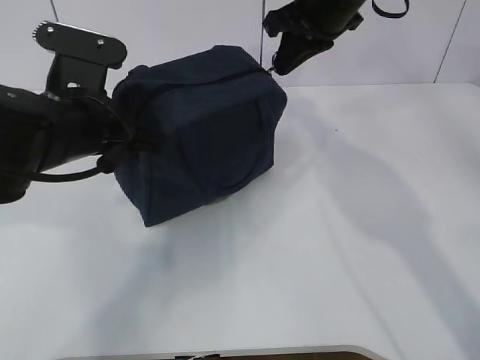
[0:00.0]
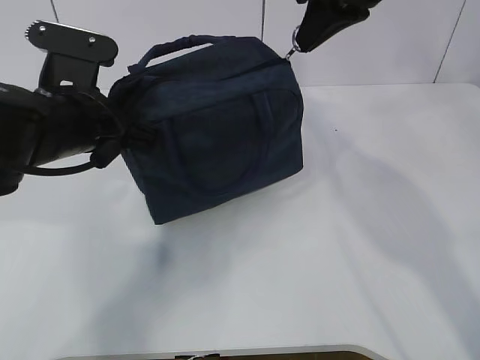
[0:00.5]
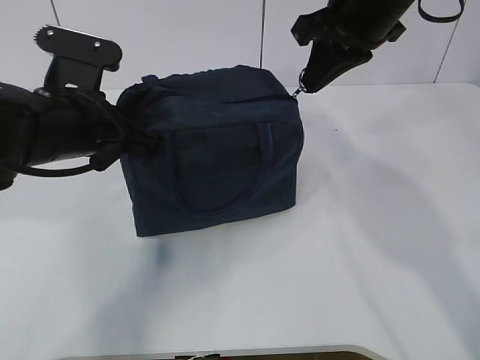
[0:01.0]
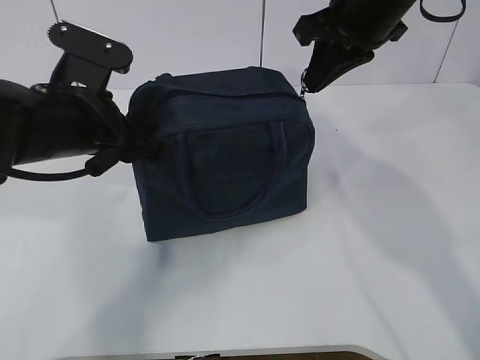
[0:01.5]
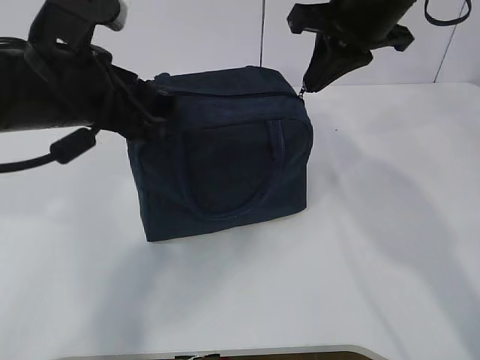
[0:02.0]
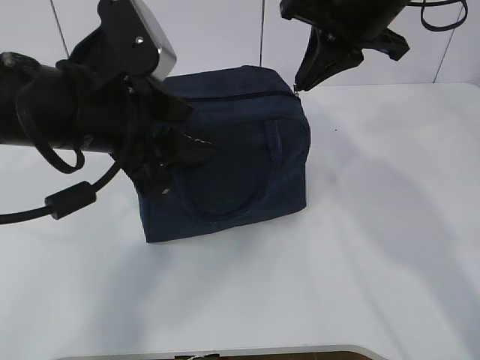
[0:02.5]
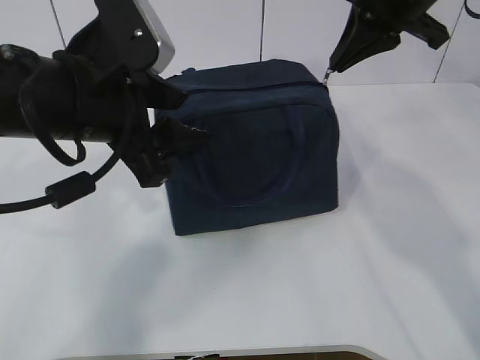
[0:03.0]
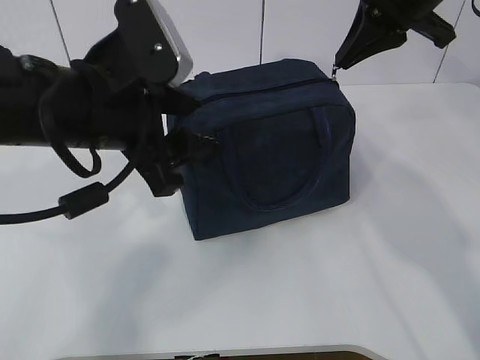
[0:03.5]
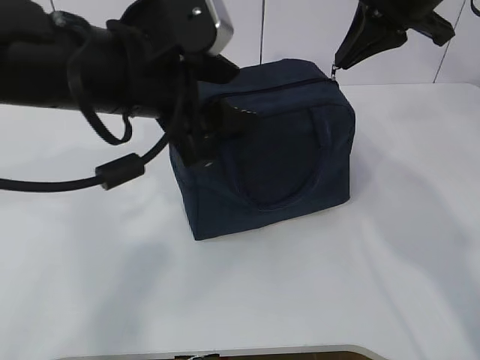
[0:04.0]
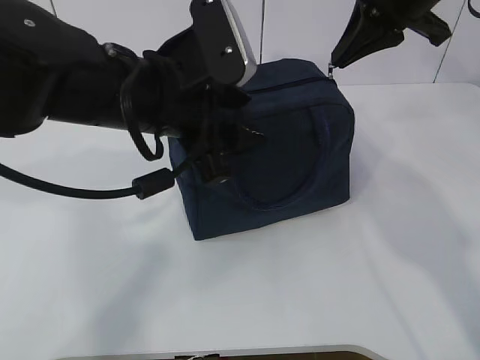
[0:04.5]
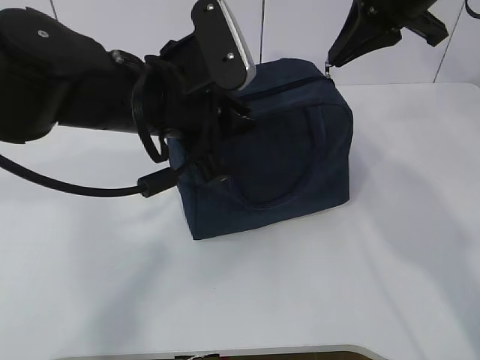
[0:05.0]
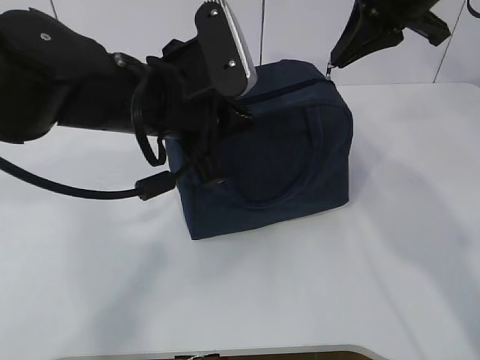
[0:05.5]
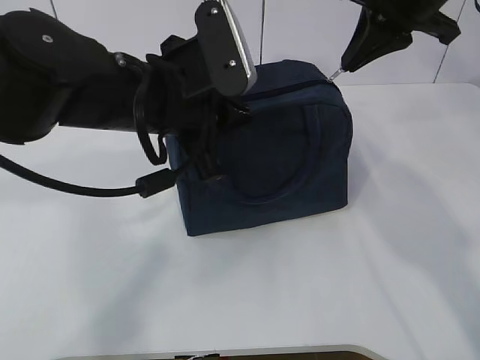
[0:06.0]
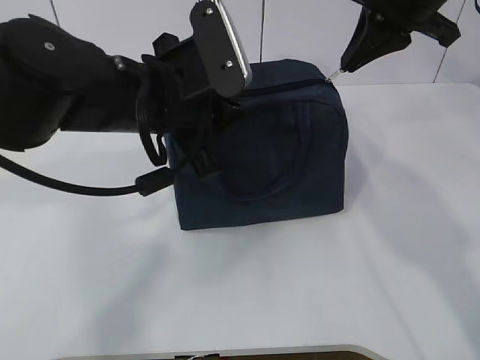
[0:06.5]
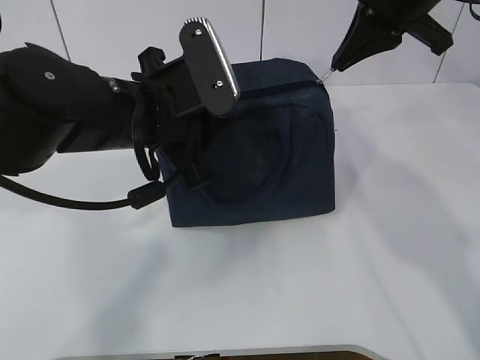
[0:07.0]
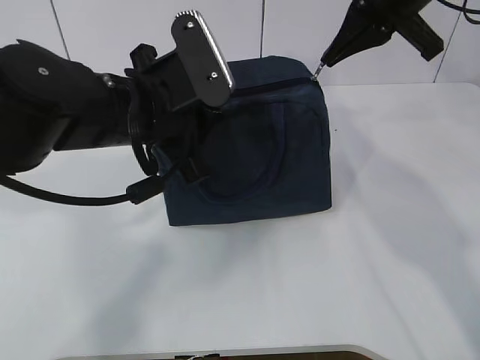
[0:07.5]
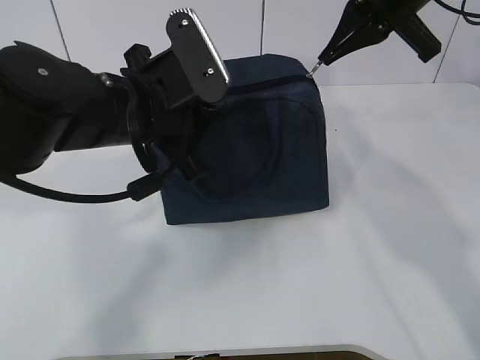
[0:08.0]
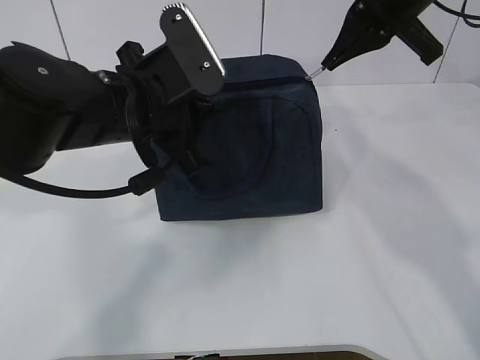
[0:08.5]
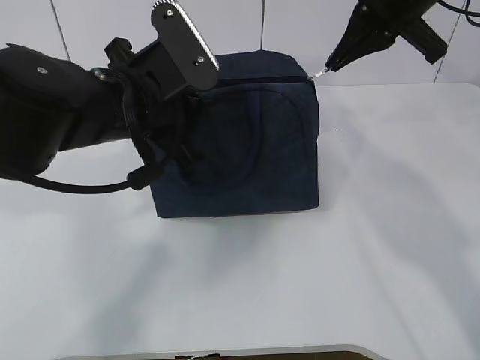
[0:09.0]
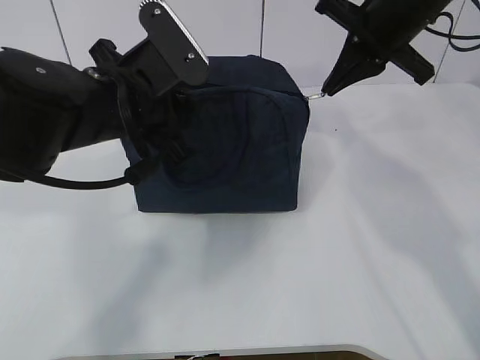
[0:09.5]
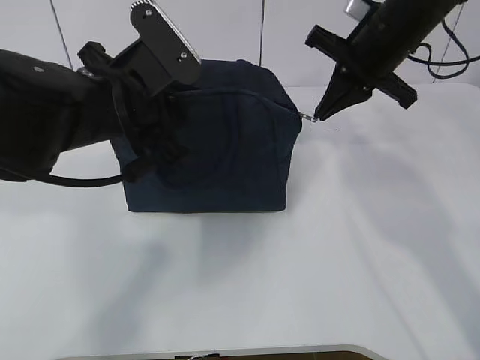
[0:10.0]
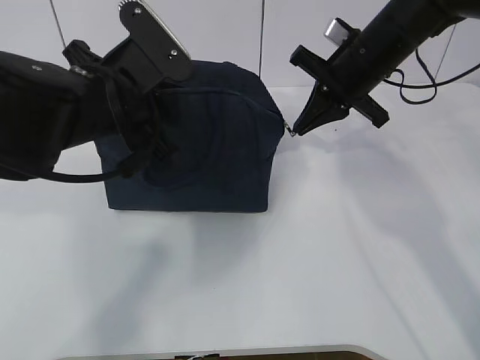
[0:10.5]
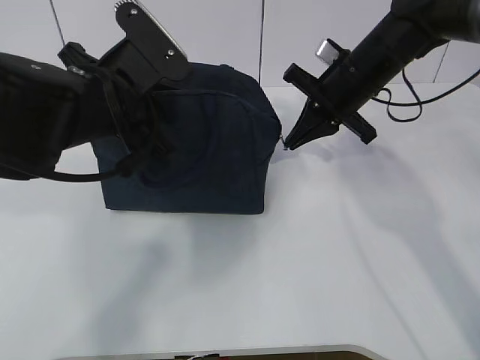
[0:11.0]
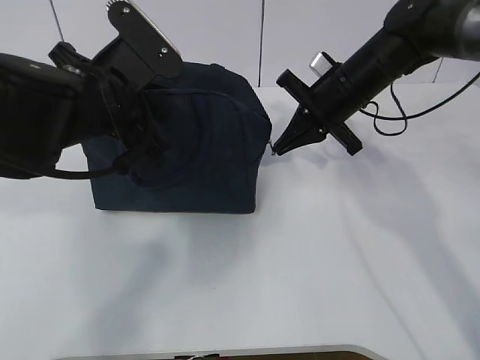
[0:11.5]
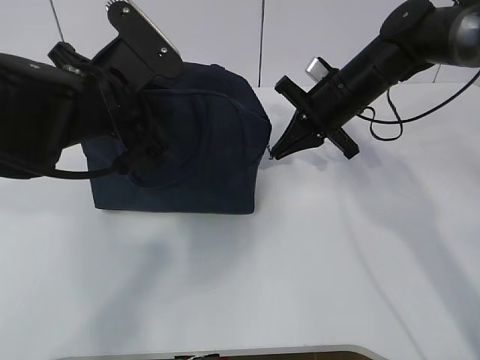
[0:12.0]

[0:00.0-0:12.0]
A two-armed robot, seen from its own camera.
0:00.0 to 0:02.0: The right gripper moves backward, approximately 5 cm, while the left gripper ends up about 5 cm from where it was, and opens its fingers.
0:02.0 to 0:04.0: The left gripper shifts roughly 5 cm to the right.
0:04.0 to 0:06.0: The left gripper closes up.
0:08.0 to 0:10.0: The right gripper is displaced downward by approximately 10 cm.
0:10.0 to 0:12.0: The right gripper travels downward by approximately 10 cm.

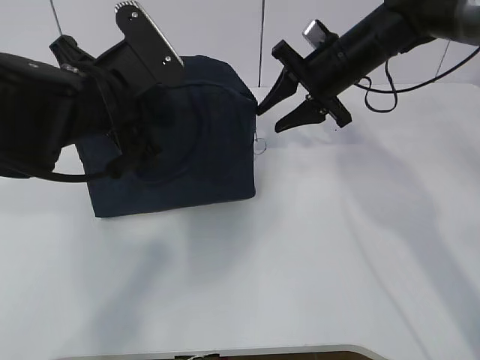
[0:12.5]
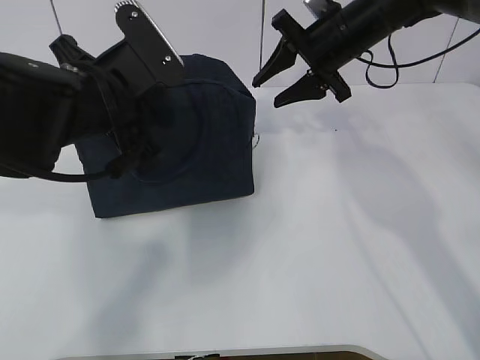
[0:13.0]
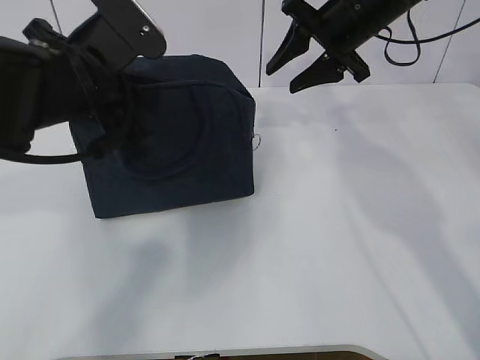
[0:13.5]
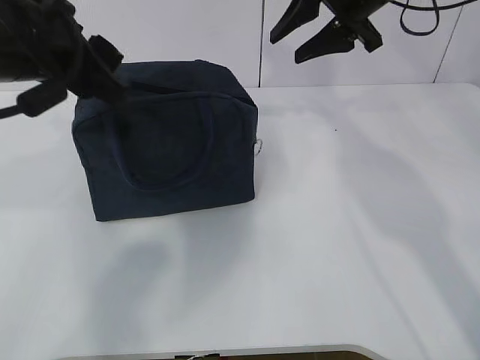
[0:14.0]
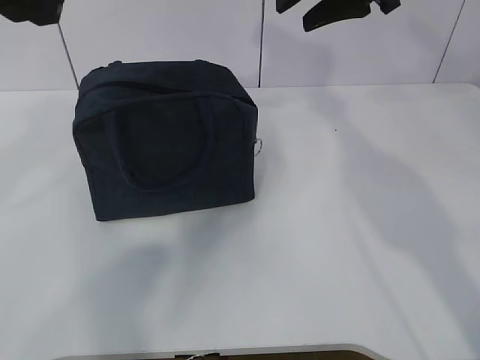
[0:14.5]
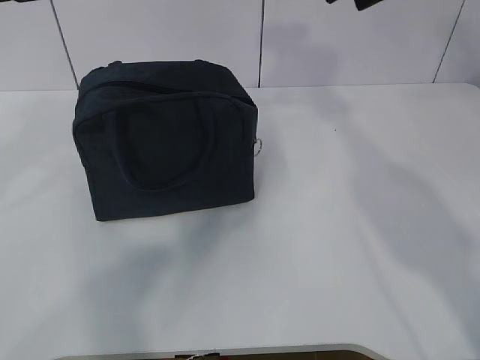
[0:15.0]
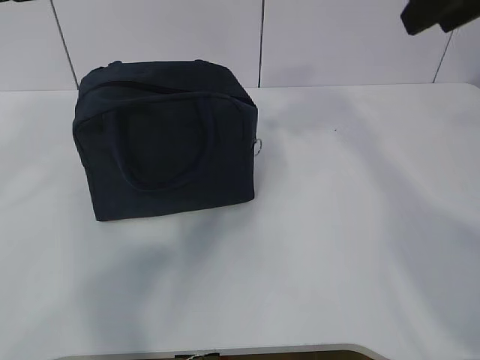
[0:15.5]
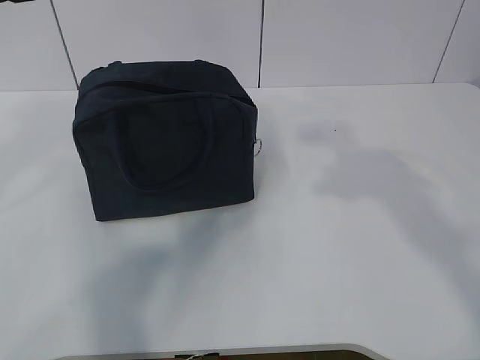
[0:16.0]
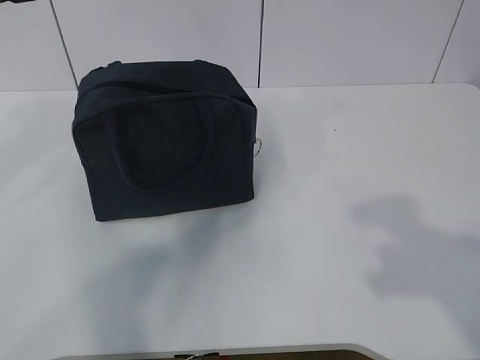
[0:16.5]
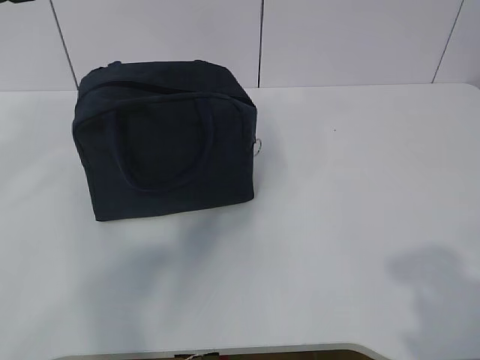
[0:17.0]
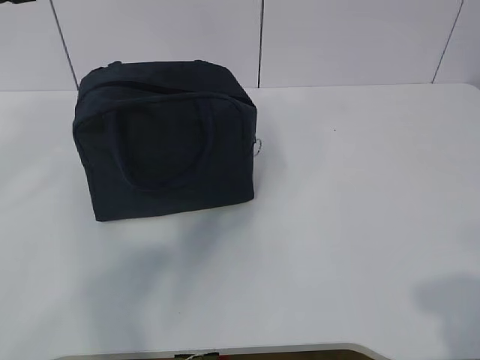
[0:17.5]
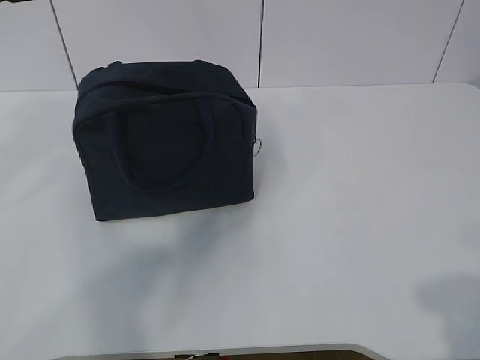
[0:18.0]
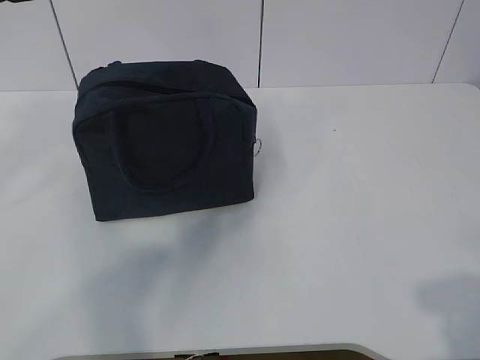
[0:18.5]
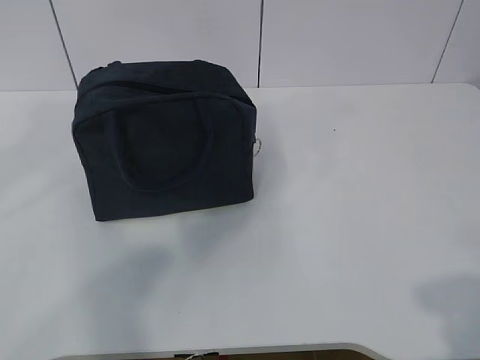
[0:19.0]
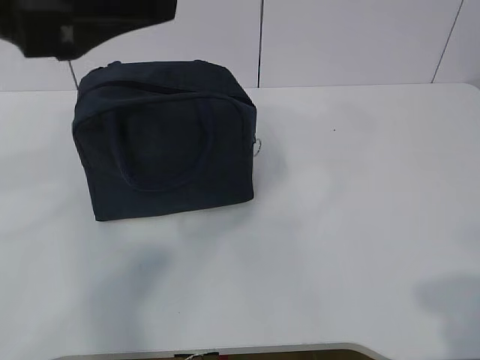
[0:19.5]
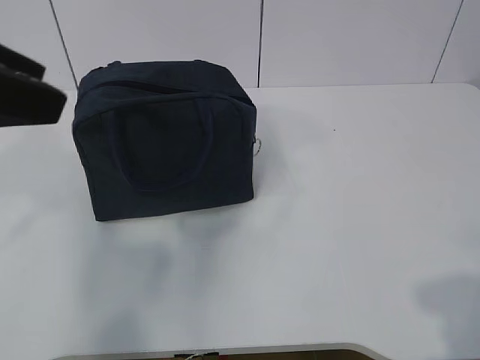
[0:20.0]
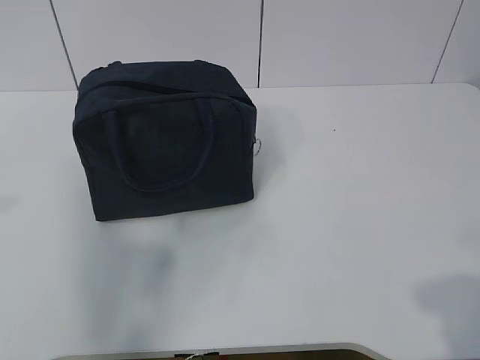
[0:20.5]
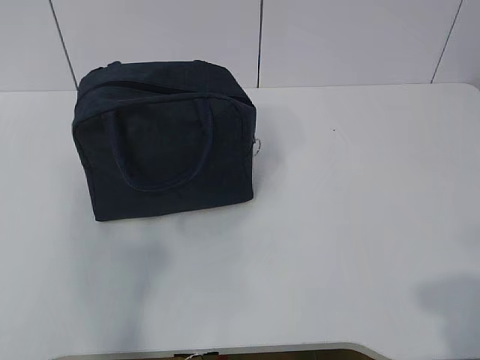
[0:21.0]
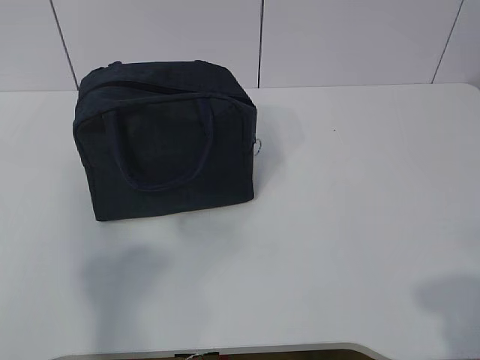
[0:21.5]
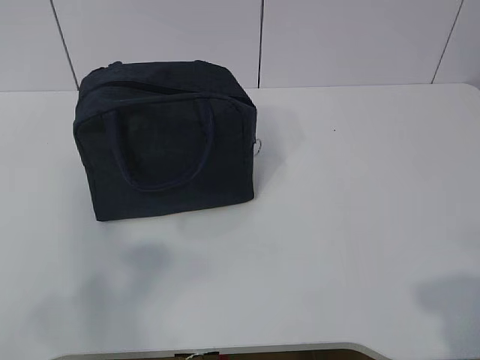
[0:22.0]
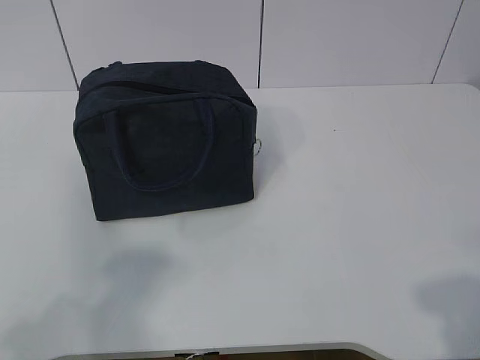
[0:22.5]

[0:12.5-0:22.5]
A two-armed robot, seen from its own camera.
0:12.5 to 0:14.5: The right gripper moves upward, roughly 15 cm, while the left gripper is displaced upward and backward by about 15 cm, and opens up.
0:14.5 to 0:16.5: The right gripper shifts approximately 35 cm backward.
0:18.5 to 0:20.5: The left gripper travels backward and to the left by roughly 10 cm.
0:20.5 to 0:22.5: The left gripper heads backward and downward, covering some 15 cm.

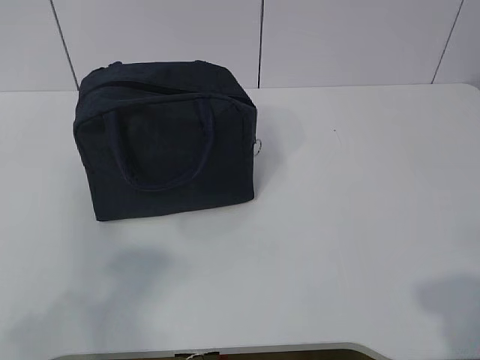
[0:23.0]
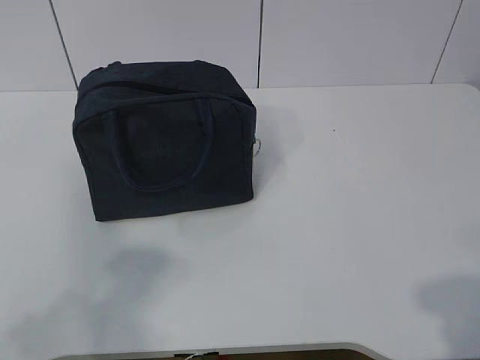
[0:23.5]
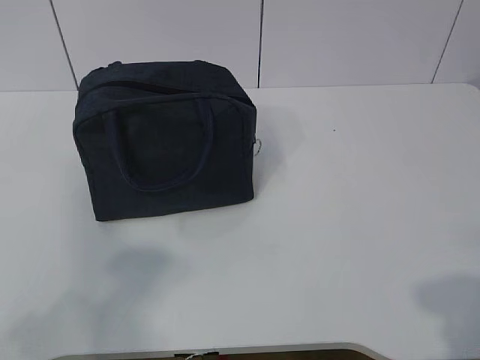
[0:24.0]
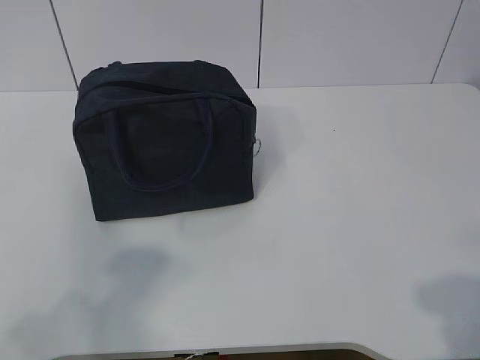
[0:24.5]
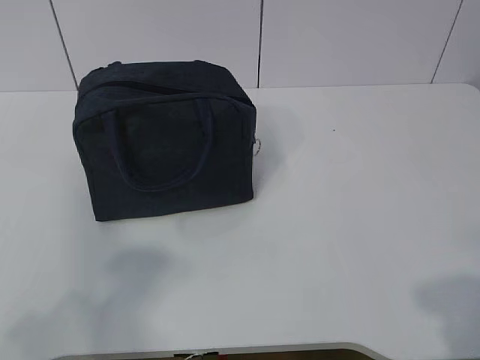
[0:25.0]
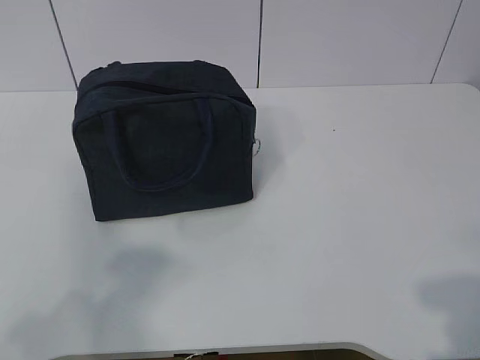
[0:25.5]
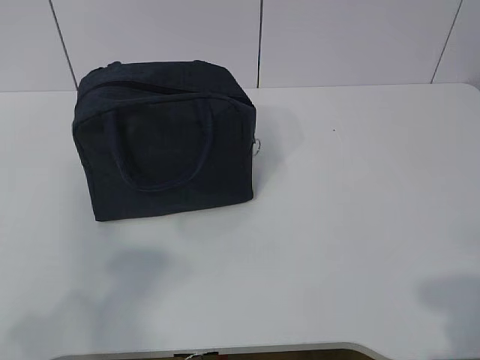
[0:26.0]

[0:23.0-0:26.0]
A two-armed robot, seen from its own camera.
0:23.0 to 0:26.0: Both grippers stay about where they are.

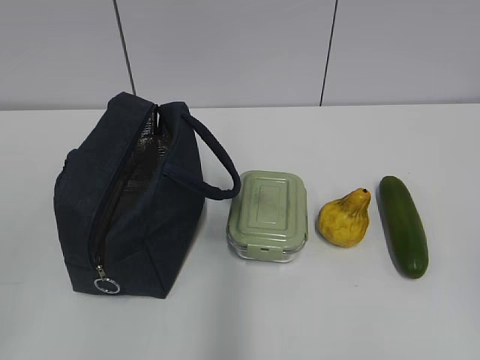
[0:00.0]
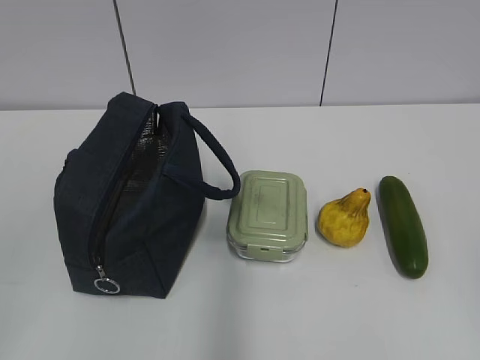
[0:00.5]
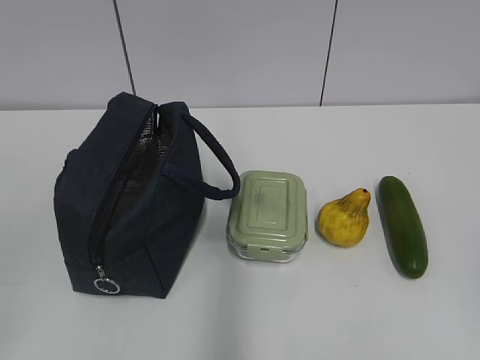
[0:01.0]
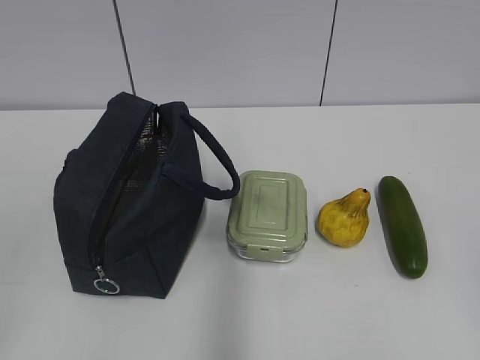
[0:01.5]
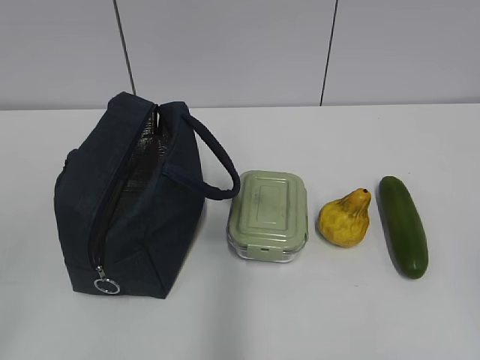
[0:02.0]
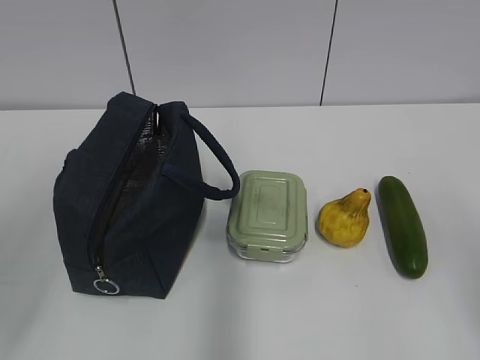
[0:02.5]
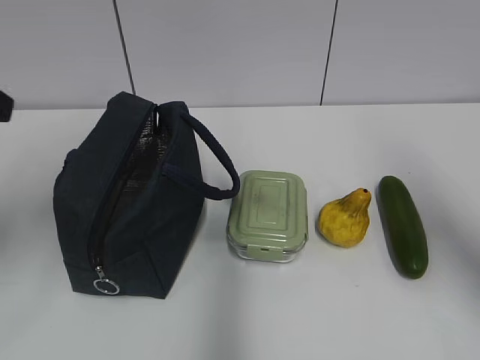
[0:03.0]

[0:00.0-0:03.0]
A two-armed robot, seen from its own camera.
0:01.5 to 0:03.0: The grippers both shift forward by roughly 25 cm.
